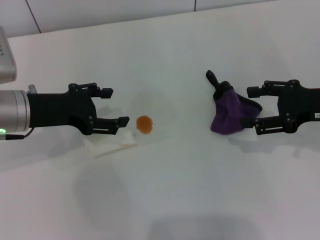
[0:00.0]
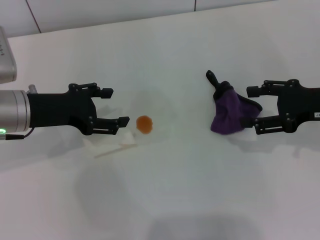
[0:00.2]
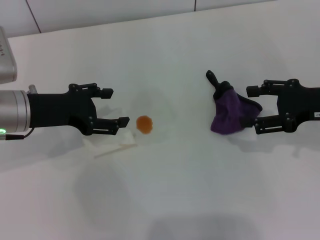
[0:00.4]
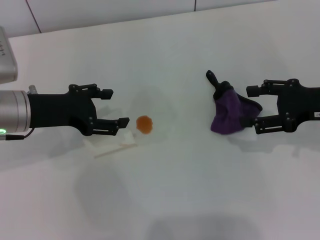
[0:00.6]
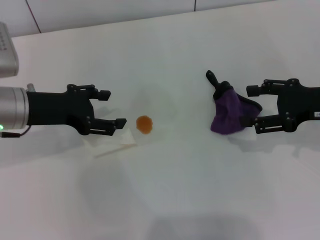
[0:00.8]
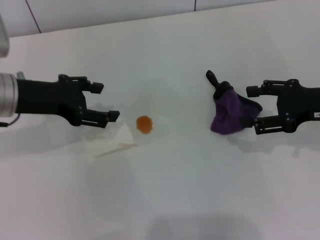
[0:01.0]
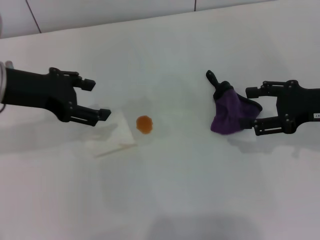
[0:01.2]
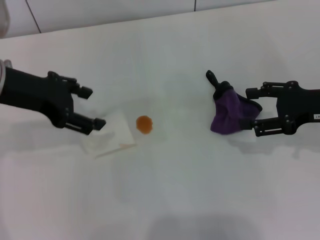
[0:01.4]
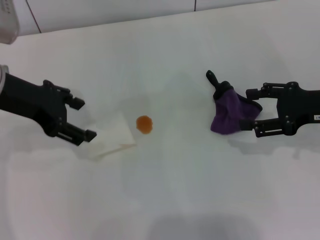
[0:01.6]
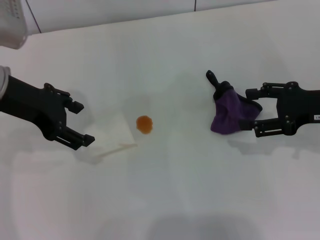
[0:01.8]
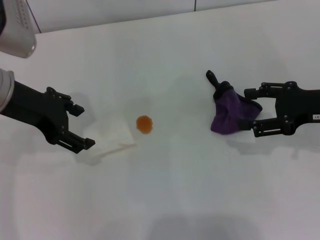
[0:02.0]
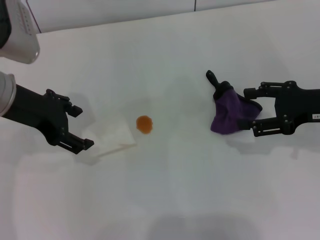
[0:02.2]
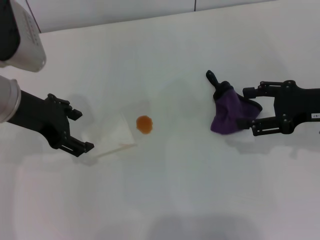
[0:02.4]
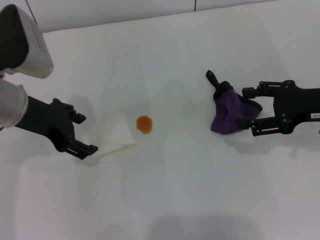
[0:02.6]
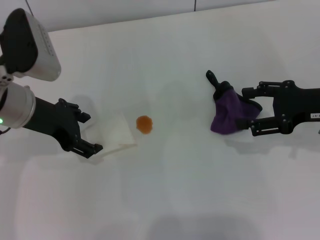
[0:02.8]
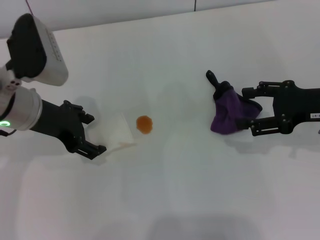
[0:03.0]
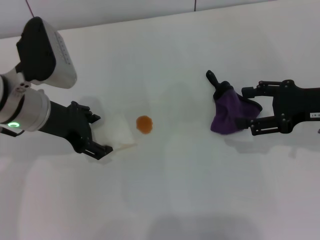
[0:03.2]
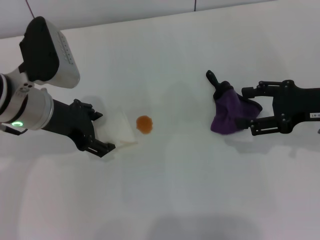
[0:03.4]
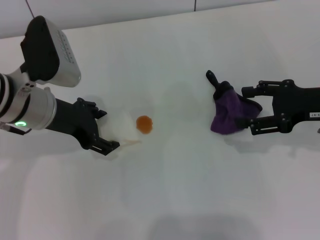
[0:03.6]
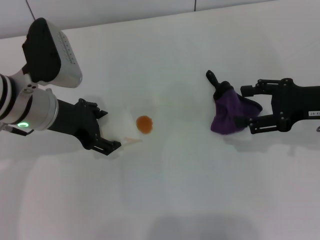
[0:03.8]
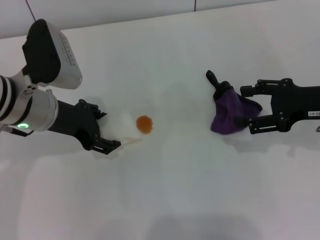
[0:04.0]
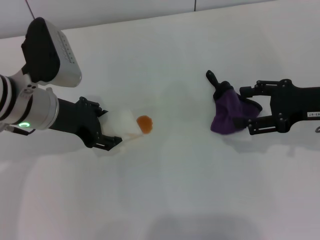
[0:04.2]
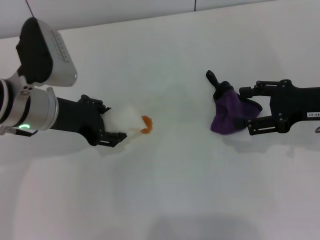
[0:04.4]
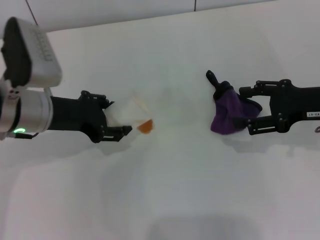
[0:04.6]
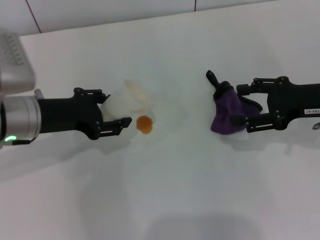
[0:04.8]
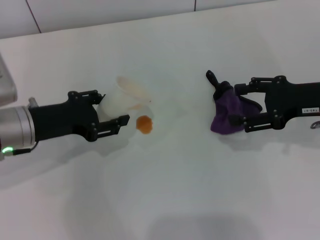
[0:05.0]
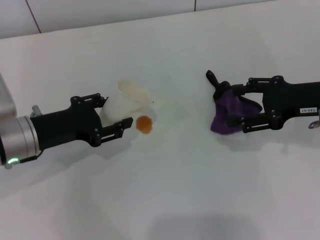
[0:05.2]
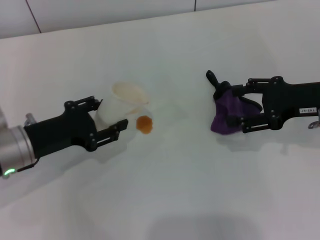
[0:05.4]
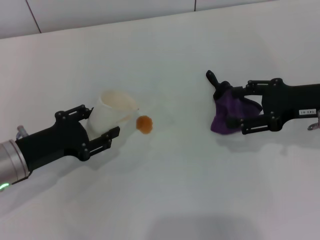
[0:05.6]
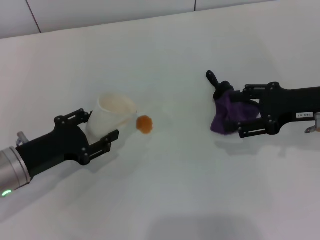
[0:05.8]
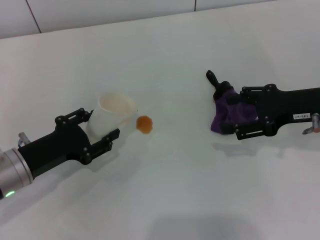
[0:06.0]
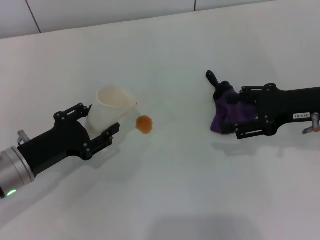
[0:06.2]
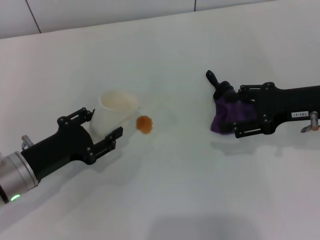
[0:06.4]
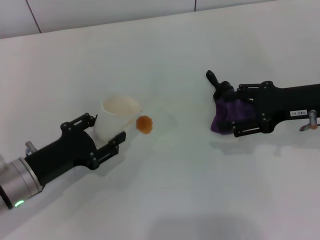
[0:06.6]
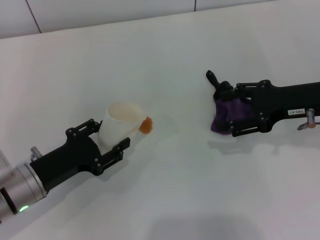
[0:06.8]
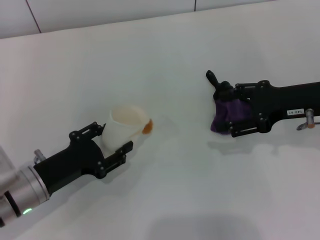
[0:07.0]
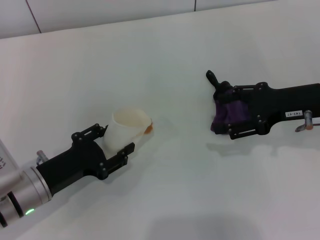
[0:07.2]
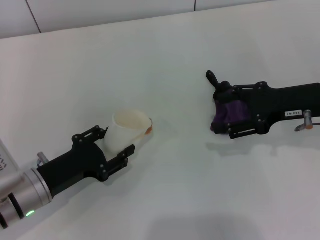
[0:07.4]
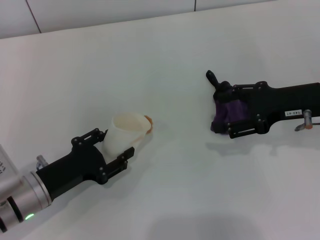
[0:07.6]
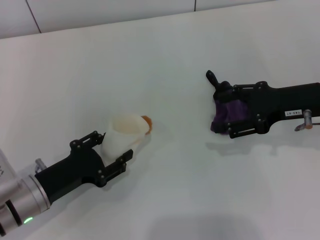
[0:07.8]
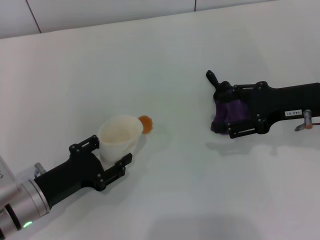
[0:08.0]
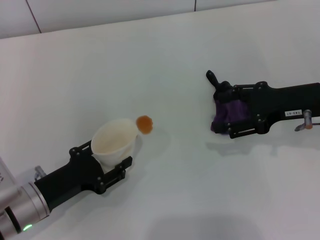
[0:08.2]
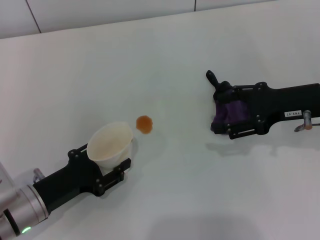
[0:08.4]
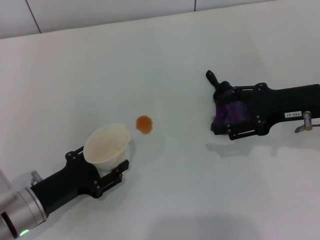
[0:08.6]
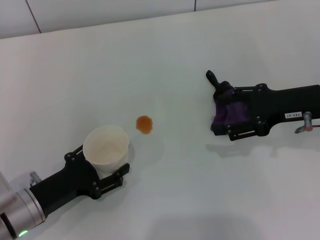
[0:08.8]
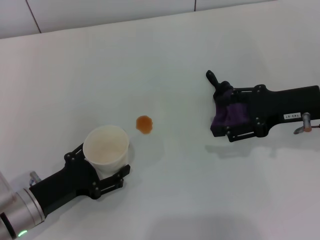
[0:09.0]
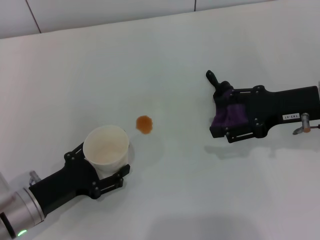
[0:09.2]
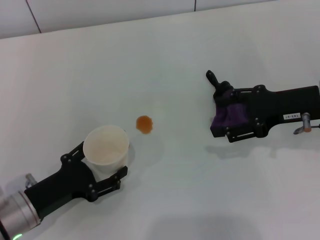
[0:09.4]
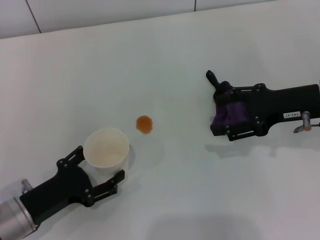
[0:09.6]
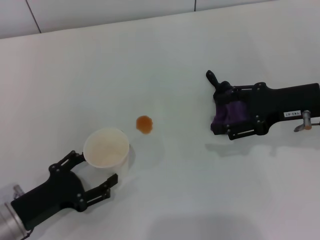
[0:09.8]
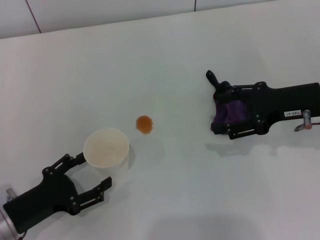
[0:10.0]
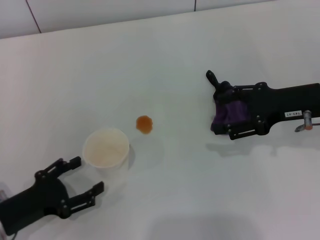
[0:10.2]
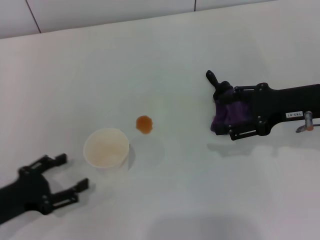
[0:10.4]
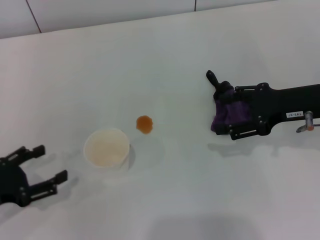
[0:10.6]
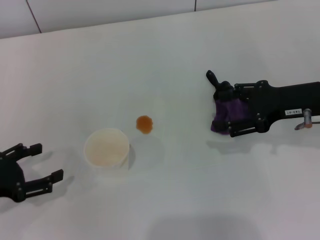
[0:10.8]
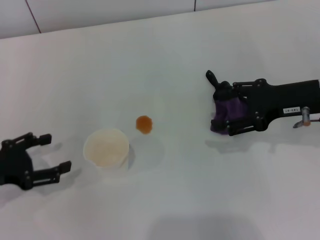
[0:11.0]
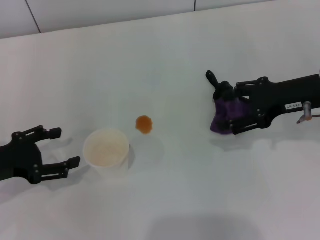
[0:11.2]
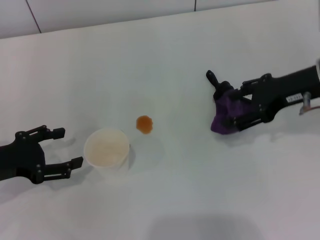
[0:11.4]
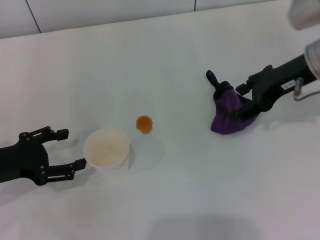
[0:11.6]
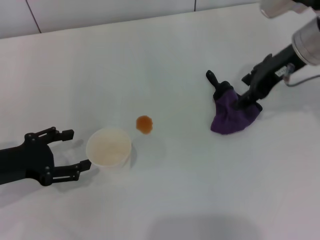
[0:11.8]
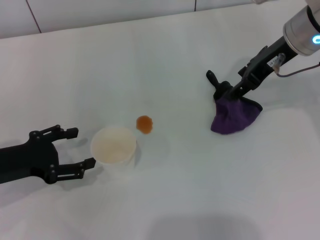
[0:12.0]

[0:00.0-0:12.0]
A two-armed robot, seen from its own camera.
Step, 0:00.0 to 0:03.8: Grasp the paper cup with the left gripper.
Step, 0:04.0 to 0:10.2: Stand the paper cup upright with the left gripper.
0:00.0 to 0:01.6: The left gripper shifts roughly 10 cm upward.
0:01.6 to 0:03.0: The left gripper shifts approximately 5 cm downward.
0:03.0 to 0:04.4: The left gripper closes up.
0:04.4 to 0:06.0: The left gripper goes some 15 cm downward, backward and to the left.
0:06.0 to 0:07.6: There are only small adjustments of the grippers.
0:07.6 to 0:09.0: The left gripper opens up.
0:09.0 to 0:10.4: The left gripper shifts some 5 cm to the left.
0:10.4 to 0:12.0: The right gripper travels forward, upward and to the left by some 10 cm; the left gripper travels forward by roughly 5 cm.

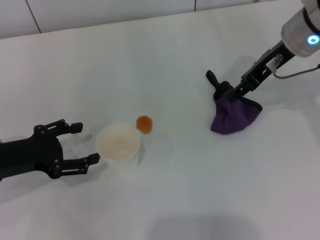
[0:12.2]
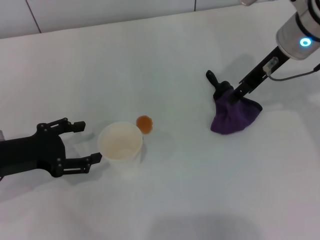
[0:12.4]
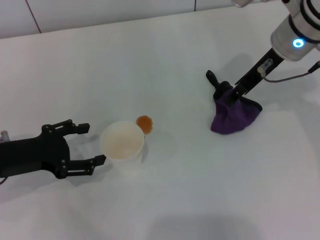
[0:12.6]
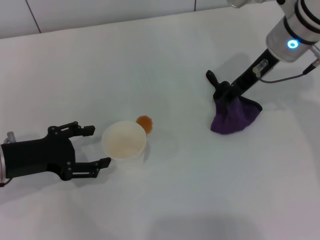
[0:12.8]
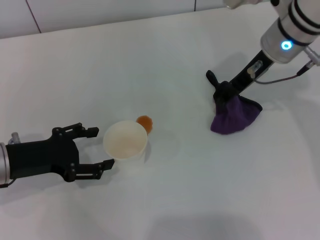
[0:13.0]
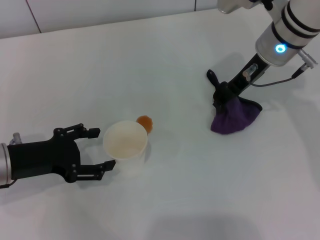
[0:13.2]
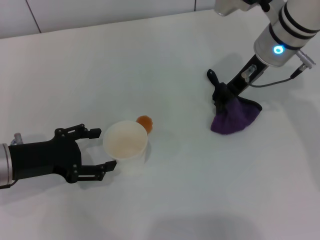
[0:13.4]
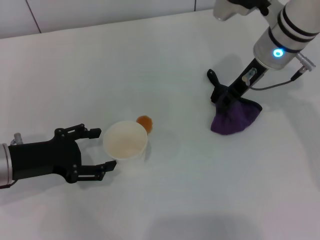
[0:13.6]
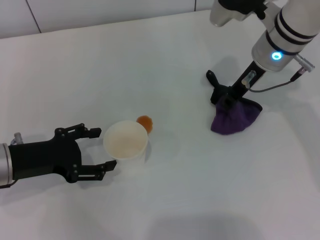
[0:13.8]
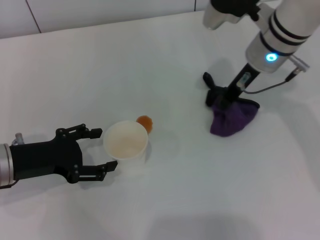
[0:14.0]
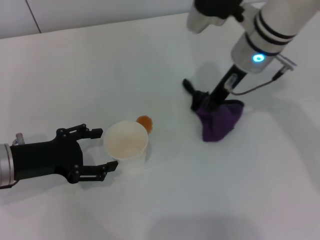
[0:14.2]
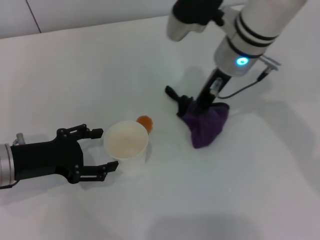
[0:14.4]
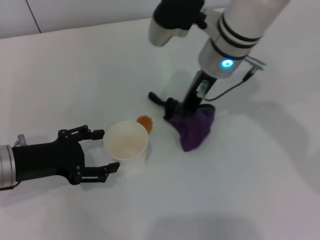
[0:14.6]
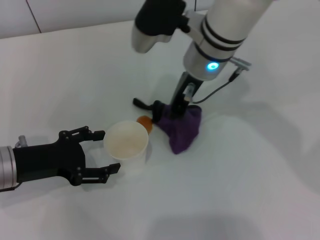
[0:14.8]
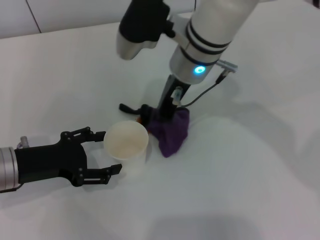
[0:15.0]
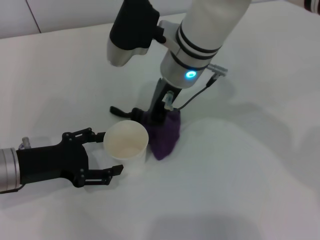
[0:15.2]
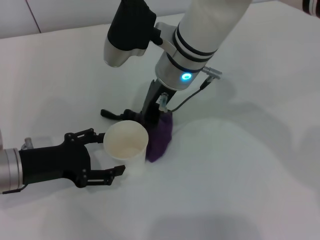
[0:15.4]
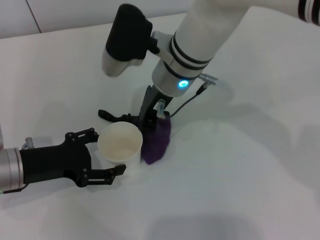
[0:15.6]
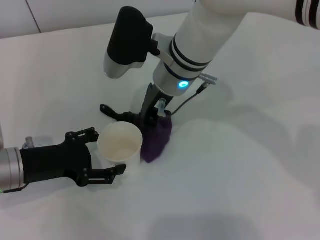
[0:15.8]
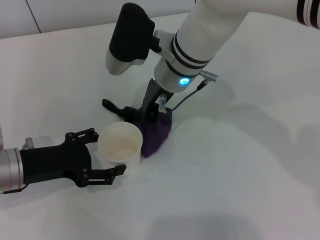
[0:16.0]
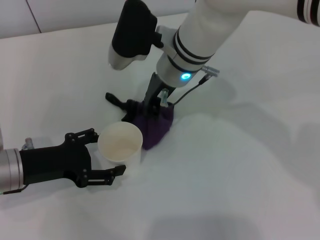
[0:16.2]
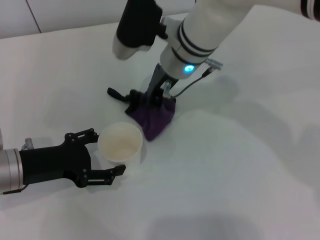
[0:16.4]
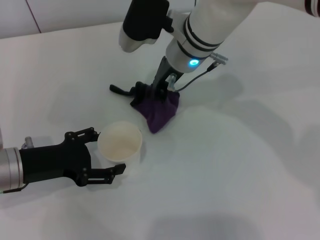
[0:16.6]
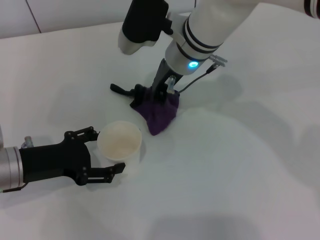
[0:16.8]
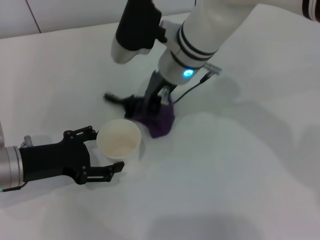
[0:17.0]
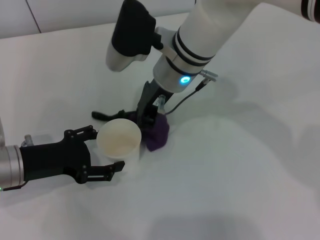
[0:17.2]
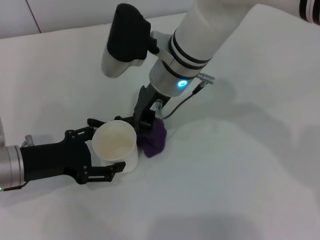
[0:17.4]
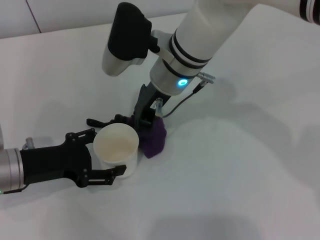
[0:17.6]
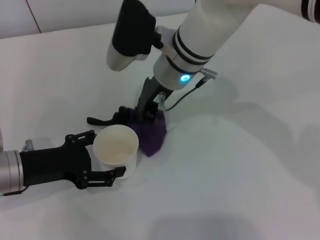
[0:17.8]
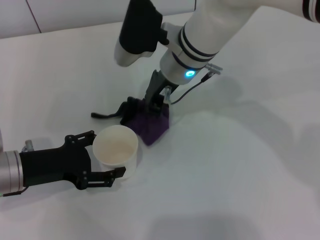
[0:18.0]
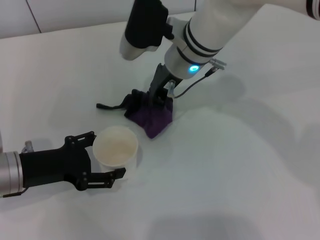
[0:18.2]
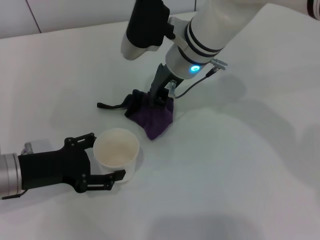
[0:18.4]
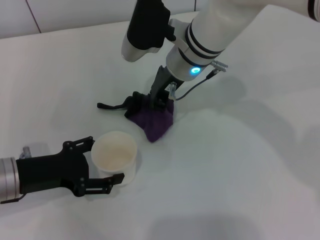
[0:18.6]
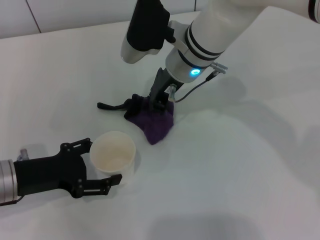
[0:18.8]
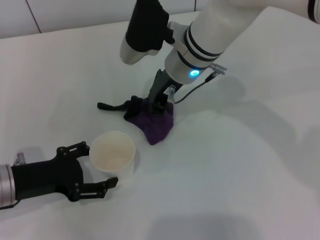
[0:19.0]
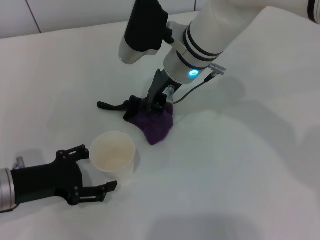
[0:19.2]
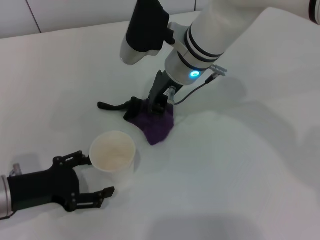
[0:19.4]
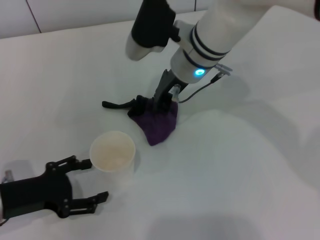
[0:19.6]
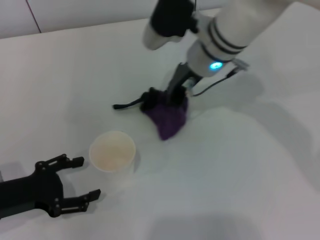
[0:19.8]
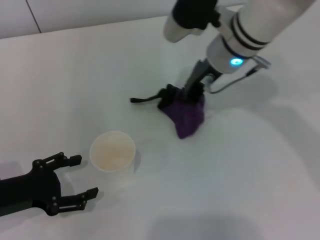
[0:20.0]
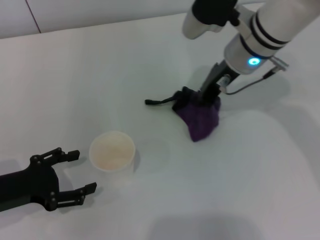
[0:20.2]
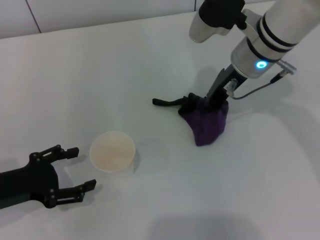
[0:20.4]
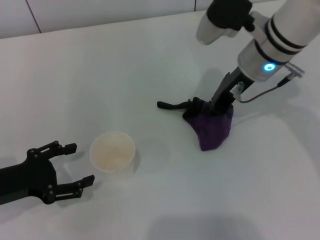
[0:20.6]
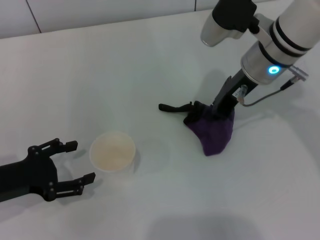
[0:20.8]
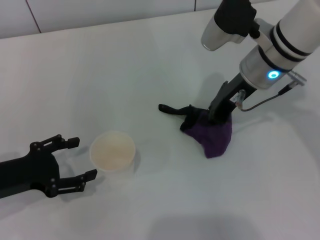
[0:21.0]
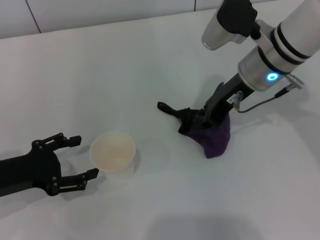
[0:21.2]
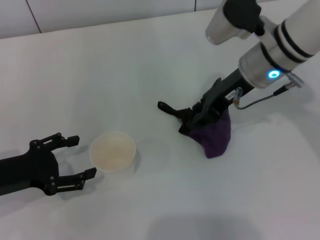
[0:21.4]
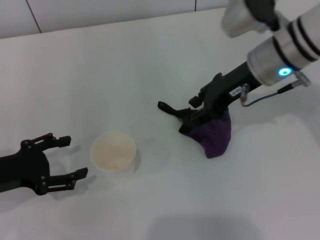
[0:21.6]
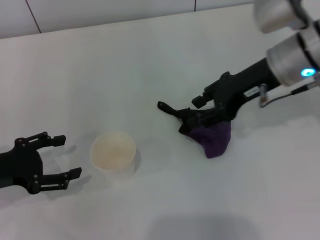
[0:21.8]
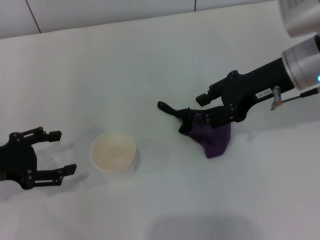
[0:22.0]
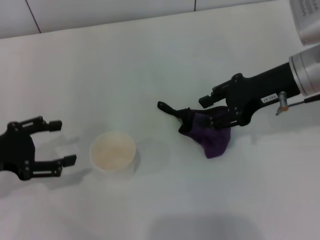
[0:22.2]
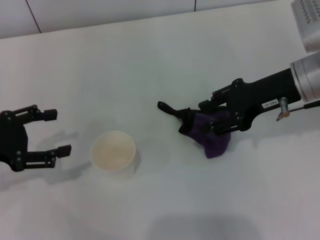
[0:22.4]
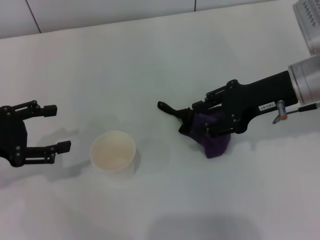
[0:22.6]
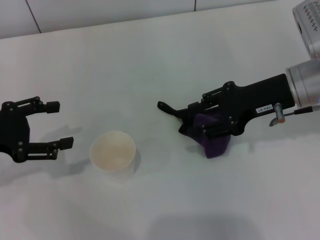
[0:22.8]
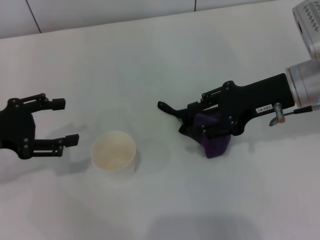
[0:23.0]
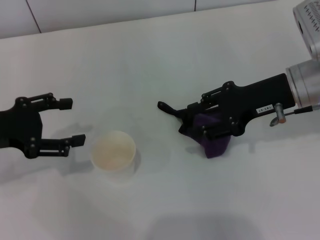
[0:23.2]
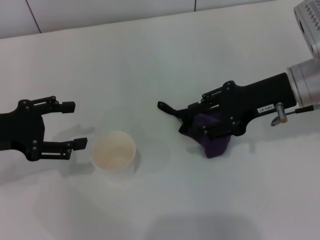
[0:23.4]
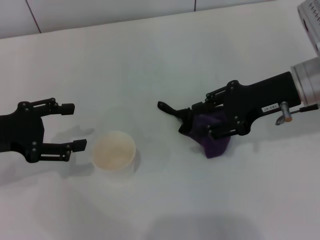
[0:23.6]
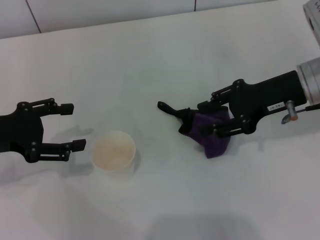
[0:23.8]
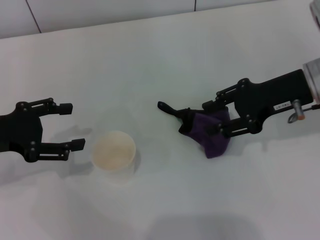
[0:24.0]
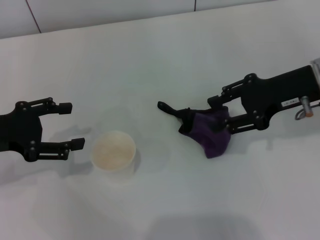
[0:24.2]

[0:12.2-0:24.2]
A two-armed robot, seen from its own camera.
Step, 0:14.2 to 0:19.0: Wipe the stains off the table with the right gripper.
Step, 0:19.2 to 0:21.8: Place the rag on the table with the right gripper.
0:12.2 to 0:13.8: The right gripper ends up some 5 cm from where it was, and closes its fingers.
0:13.8 to 0:15.2: The right gripper is displaced to the left by approximately 15 cm, and closes up.
0:15.2 to 0:18.2: The grippers make only small movements.
0:18.2 to 0:19.8: The left gripper shifts by about 5 cm.
0:19.8 to 0:21.2: The right gripper travels to the right by about 5 cm.
0:21.2 to 0:22.6: The left gripper is displaced upward by roughly 5 cm. Meanwhile the right gripper shifts about 5 cm to the right, and opens its fingers.
0:22.6 to 0:24.2: There are only small adjustments of the grippers.
